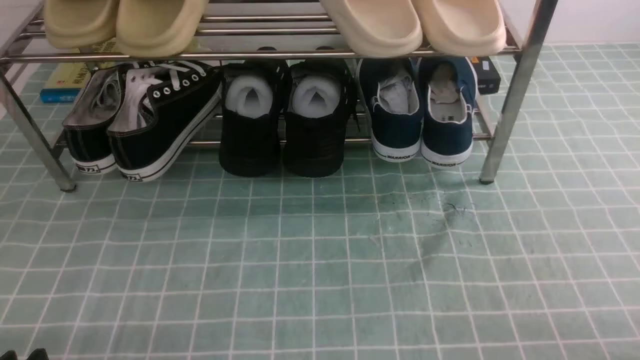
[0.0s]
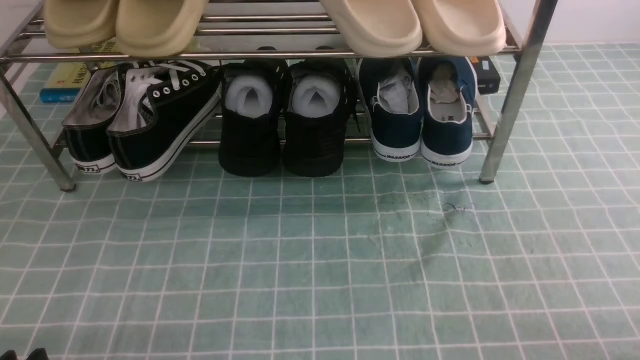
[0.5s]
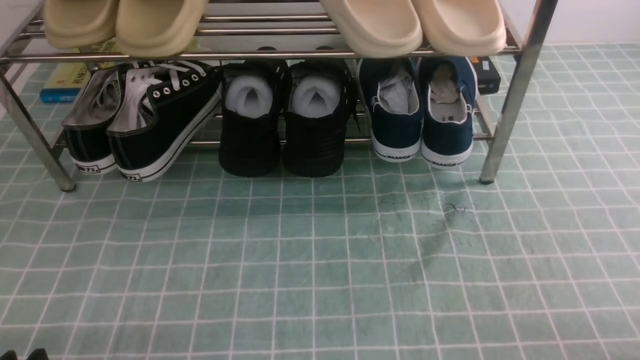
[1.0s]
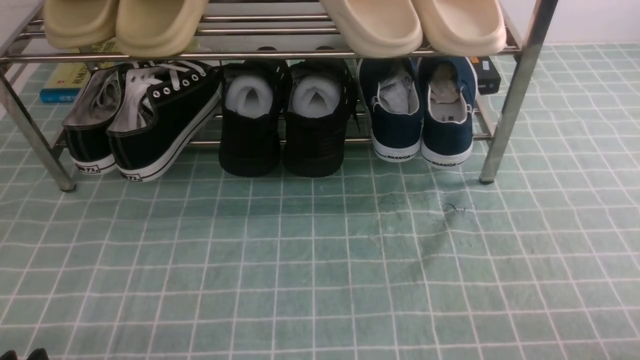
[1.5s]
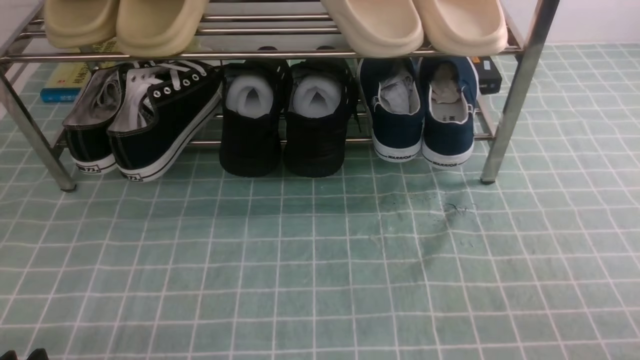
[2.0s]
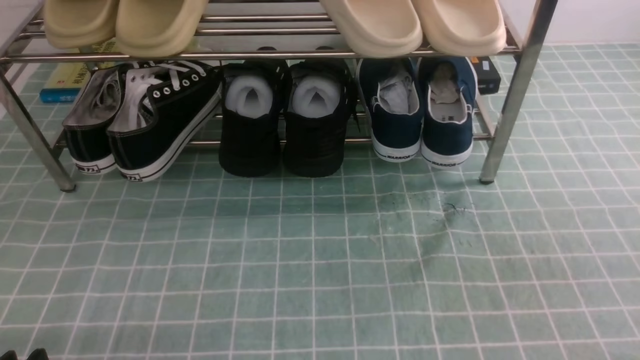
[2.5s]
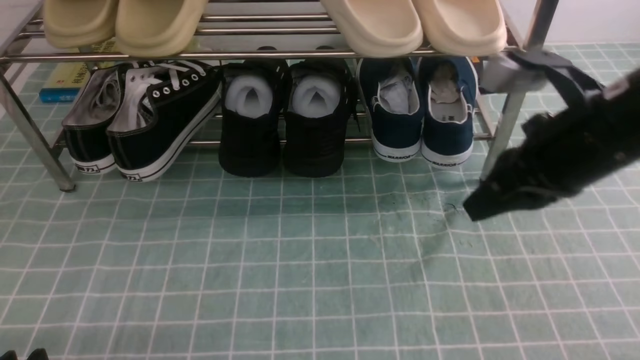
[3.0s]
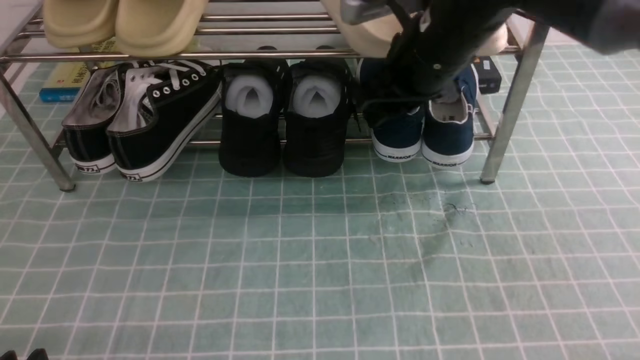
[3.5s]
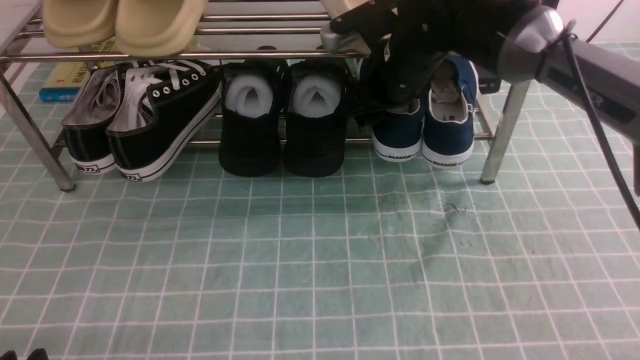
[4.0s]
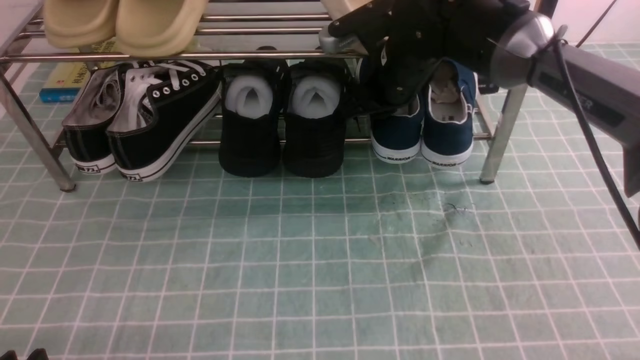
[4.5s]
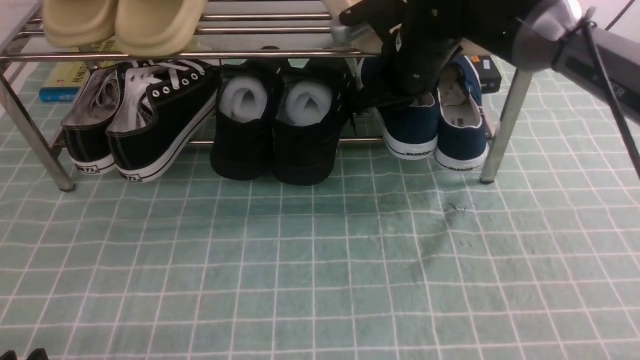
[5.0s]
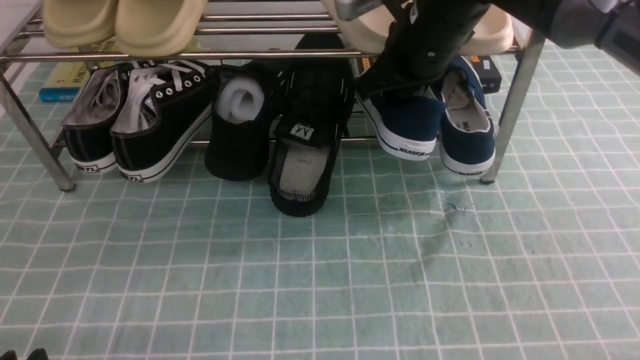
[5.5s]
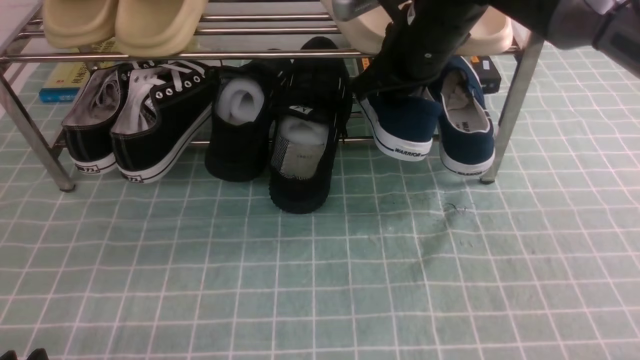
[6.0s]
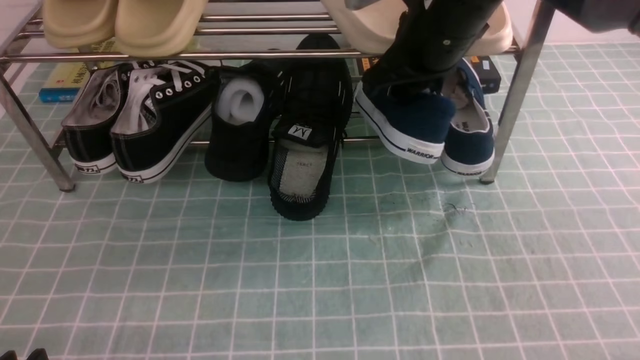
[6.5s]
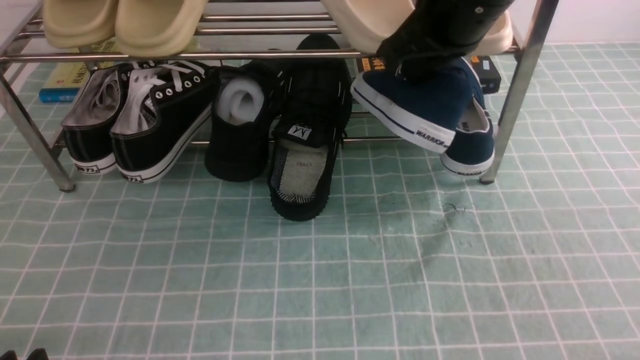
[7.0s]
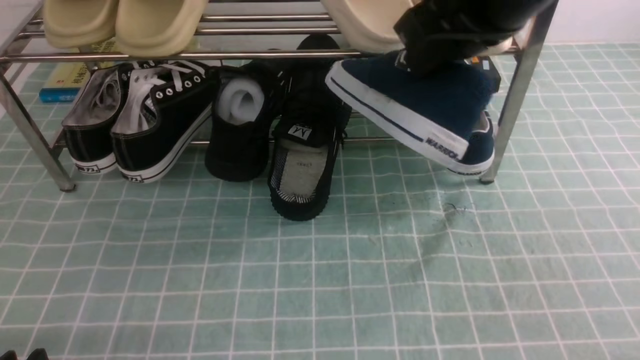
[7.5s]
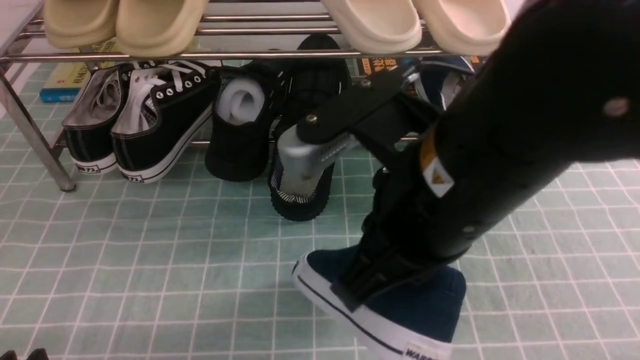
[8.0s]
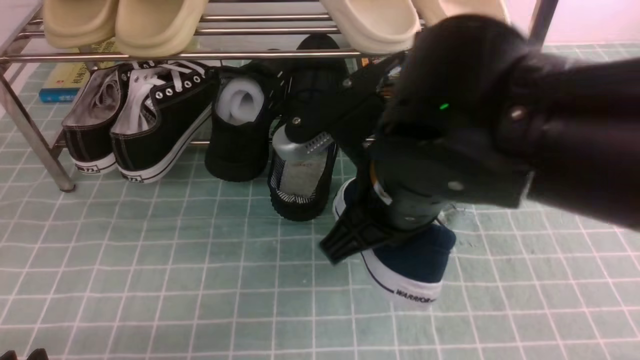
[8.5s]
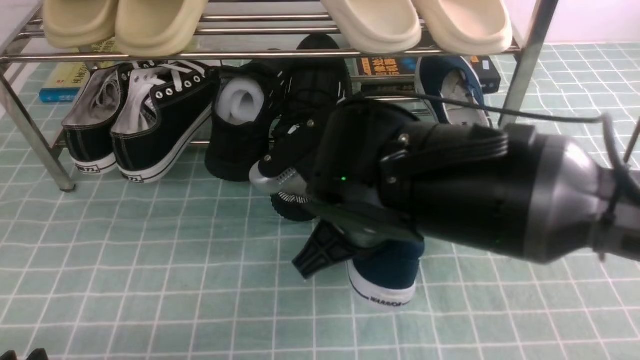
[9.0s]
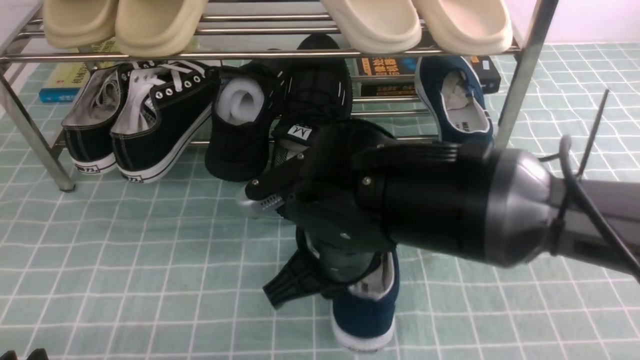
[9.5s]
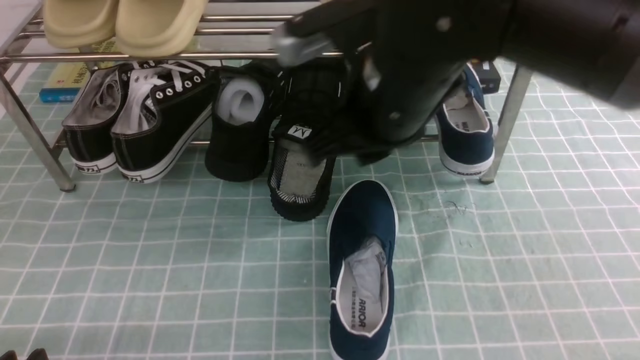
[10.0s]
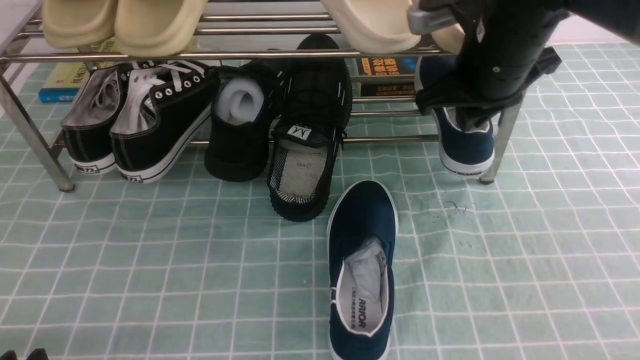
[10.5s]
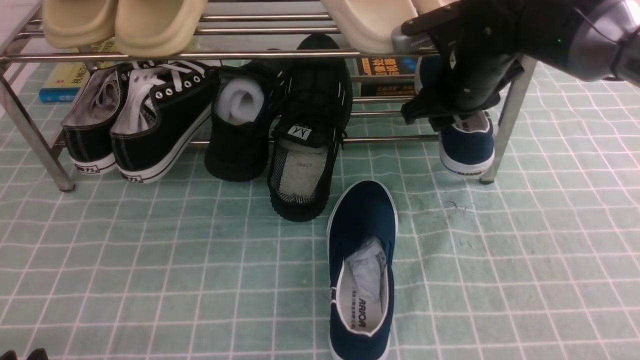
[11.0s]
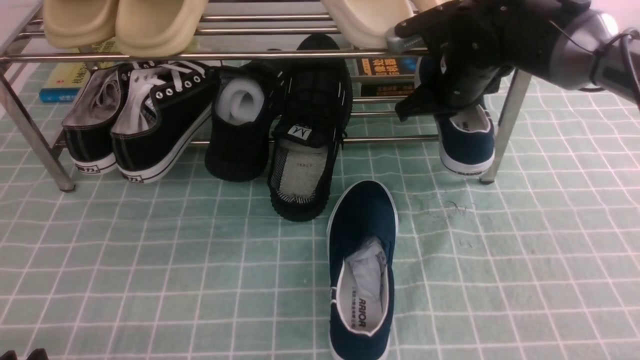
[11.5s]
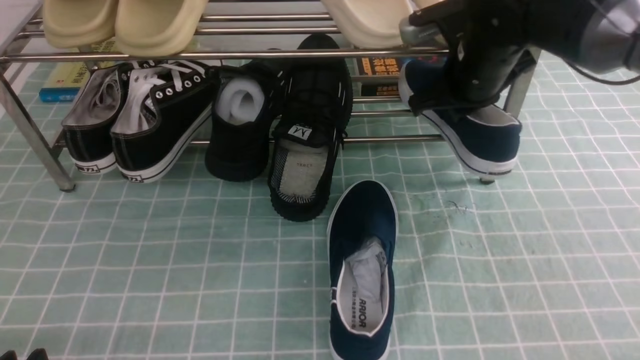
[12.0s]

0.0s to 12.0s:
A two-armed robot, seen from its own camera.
Step, 0.0s to 4.5s: use the right arm to clamp a shoe on the right side of the shoe rack.
Step, 5.0s to 9.5s: use the right arm to take out the clamped shoe from the shoe rack and put it down.
Step, 10.0s to 11.5s: use the right arm to clamp a shoe on the right side of the shoe rack.
0.0s to 2.0s: The right gripper is displaced upward by about 5 cm.
2.0s to 4.0s: The right gripper moves forward and to the left, some 40 cm, and opens its fingers.
4.0s to 6.0s: The right gripper heads upward, covering about 5 cm, and closes up.
6.0s to 8.0s: The right gripper is displaced backward by roughly 20 cm.
8.0s to 10.0s: The right gripper travels forward by approximately 10 cm.
10.0s to 12.0s: The right gripper is displaced forward and to the right by about 15 cm, and opens and closes again.

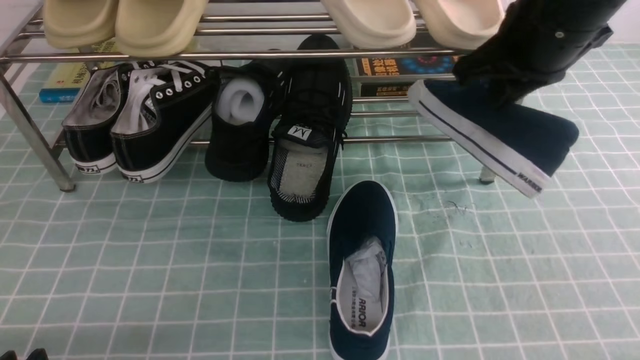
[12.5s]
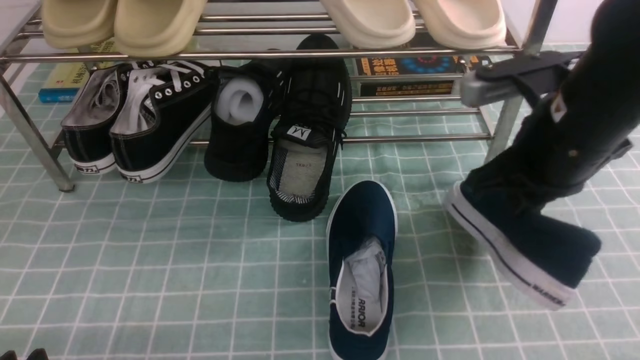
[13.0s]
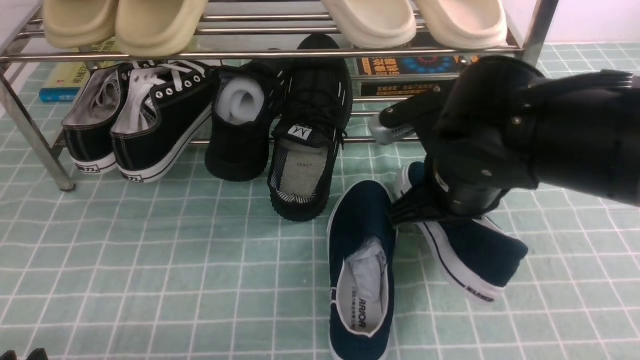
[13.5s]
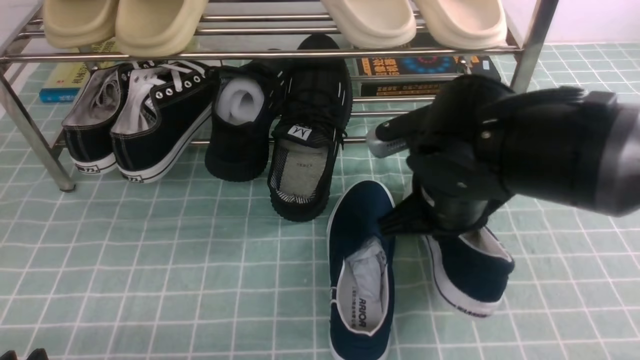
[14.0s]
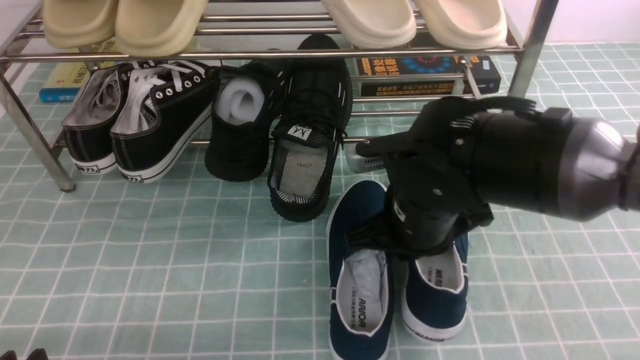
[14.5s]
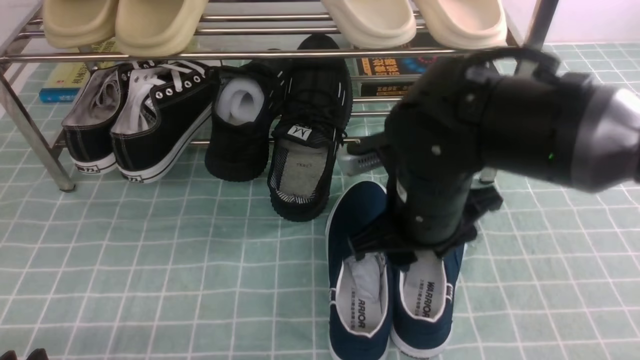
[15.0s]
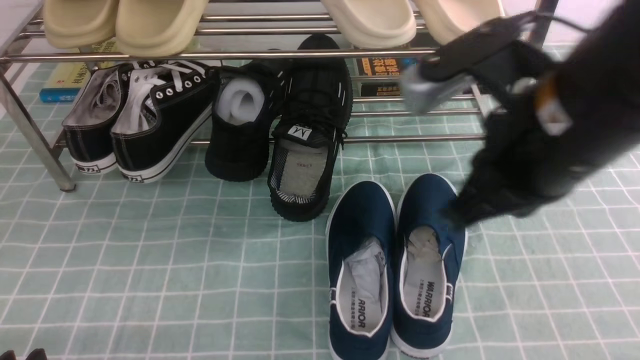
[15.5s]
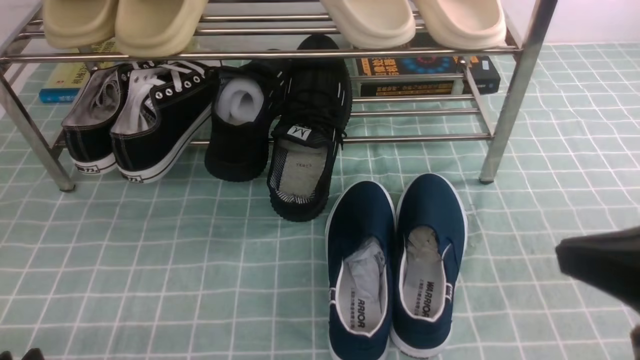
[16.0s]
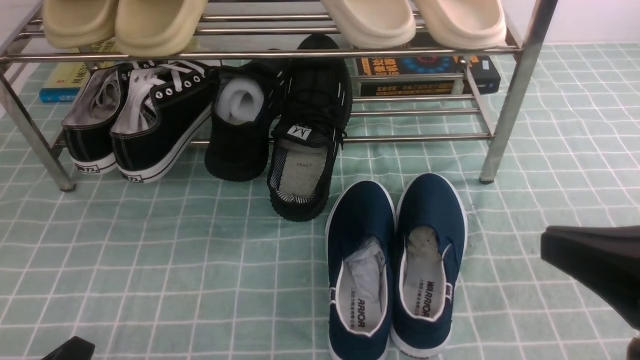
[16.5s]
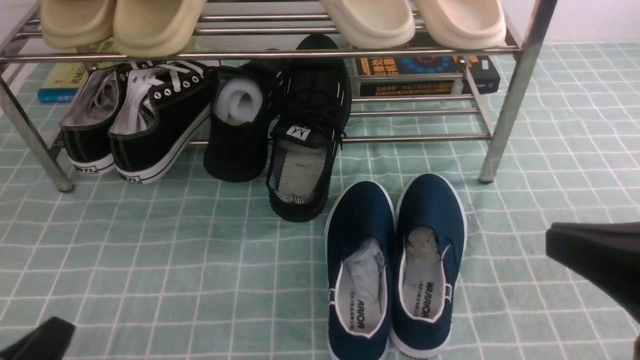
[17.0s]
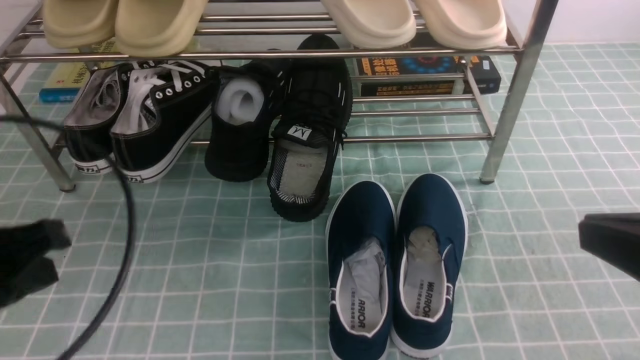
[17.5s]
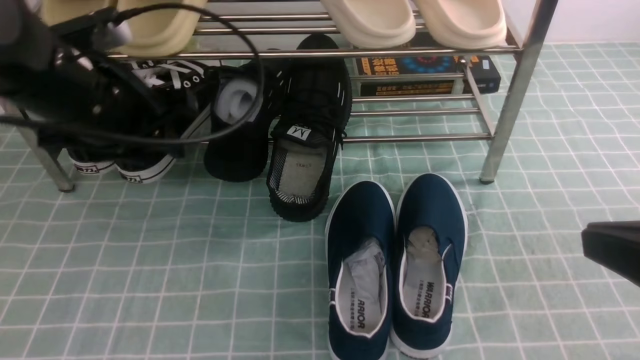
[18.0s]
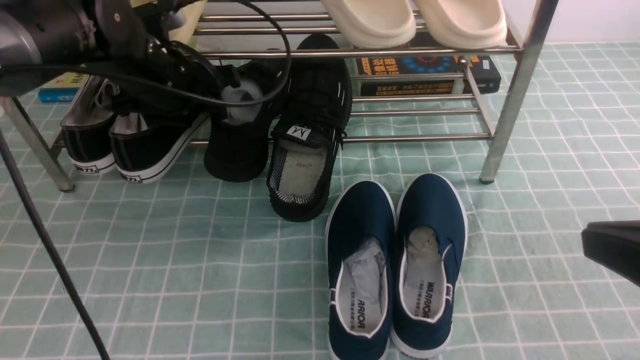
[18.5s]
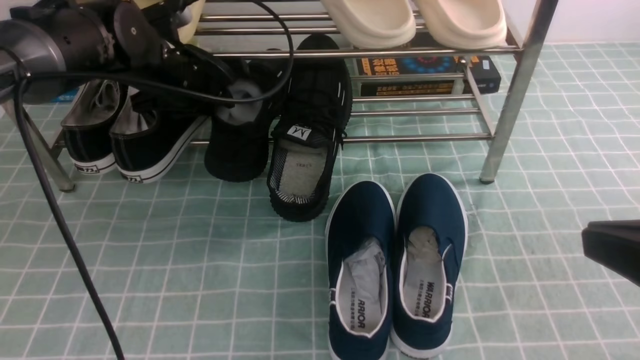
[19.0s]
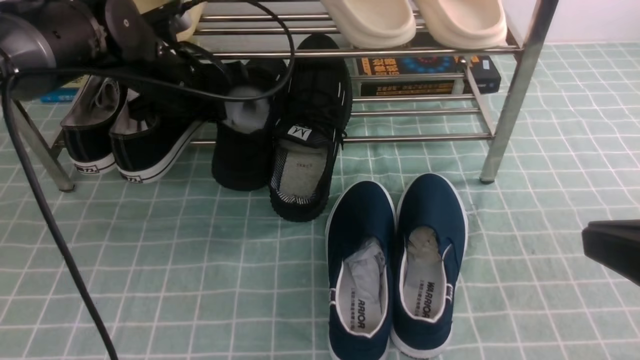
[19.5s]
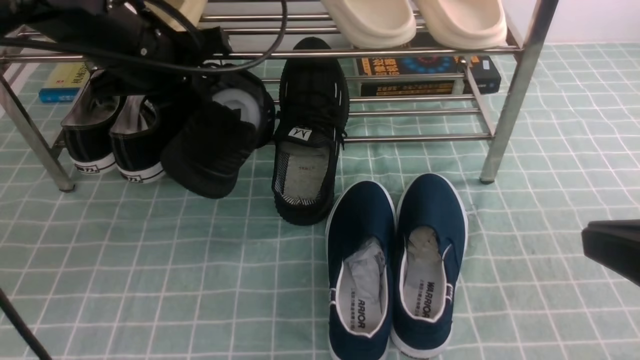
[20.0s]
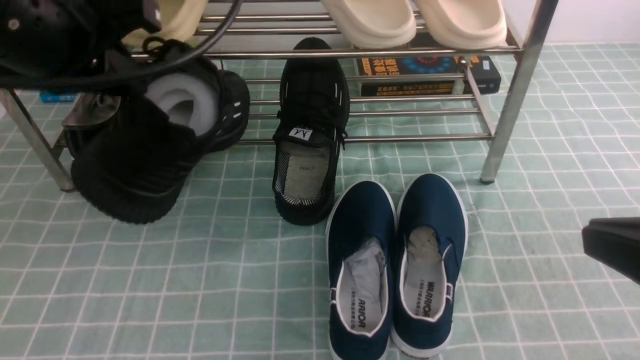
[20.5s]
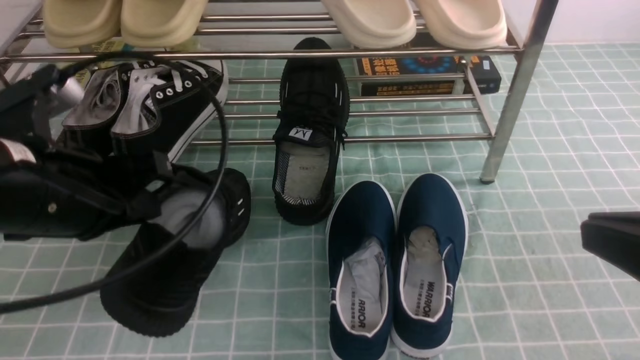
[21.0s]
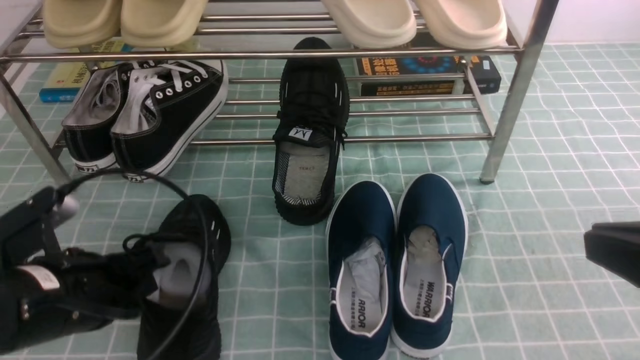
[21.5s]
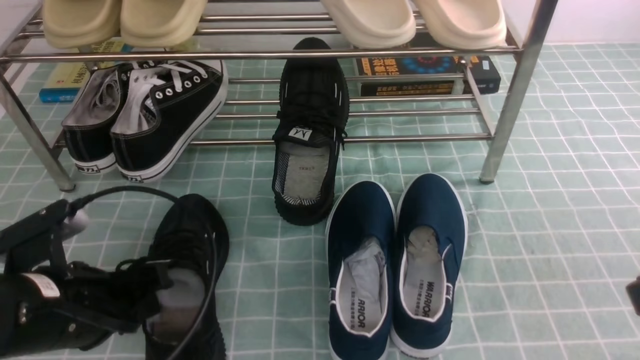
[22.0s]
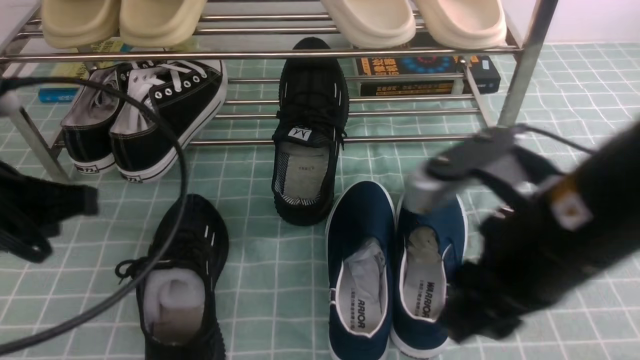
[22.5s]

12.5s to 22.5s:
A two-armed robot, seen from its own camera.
Step, 12.5s to 15.0s: use the right arm to take out the clamped shoe from the shoe rack and put it down.
Step, 15.5s to 19.0s: use the left arm to clamp a shoe in the middle of the shoe rack.
Step, 19.5s to 22.0s: Use your left arm to remove the clamped shoe from the shoe rack and put it down.
12.5s to 14.5s: The right gripper shifts about 20 cm downward and to the left.
14.5s to 16.5s: The right gripper goes some 25 cm backward, to the right and upward, and opens and closes again.
16.5s to 18.5s: The left gripper goes about 35 cm forward, and opens its fingers.
18.5s to 20.5s: The left gripper goes approximately 20 cm backward and upward, and closes its fingers.
20.5s to 22.5s: The right gripper shifts some 15 cm to the left and forward, and opens, while the left gripper moves downward and backward, roughly 10 cm.
